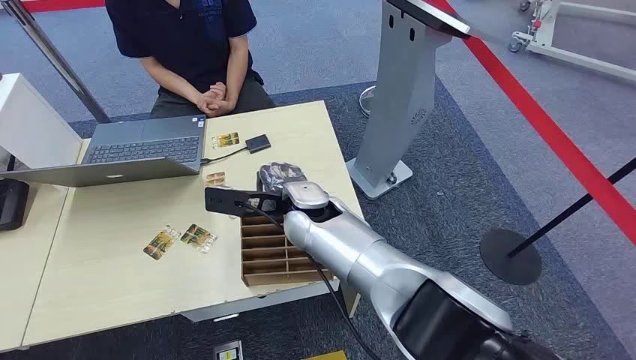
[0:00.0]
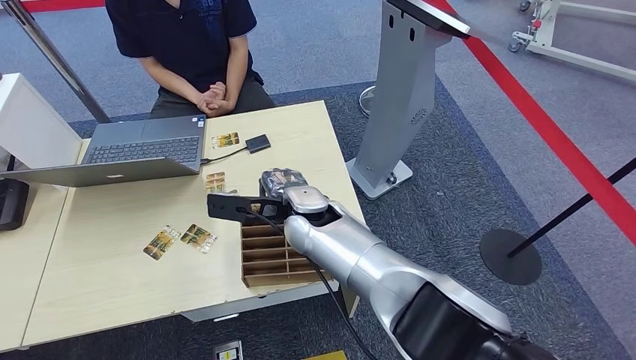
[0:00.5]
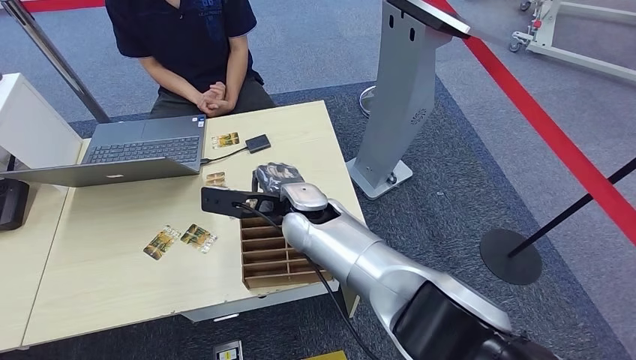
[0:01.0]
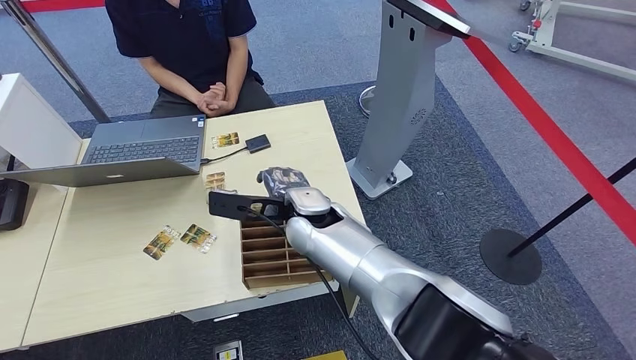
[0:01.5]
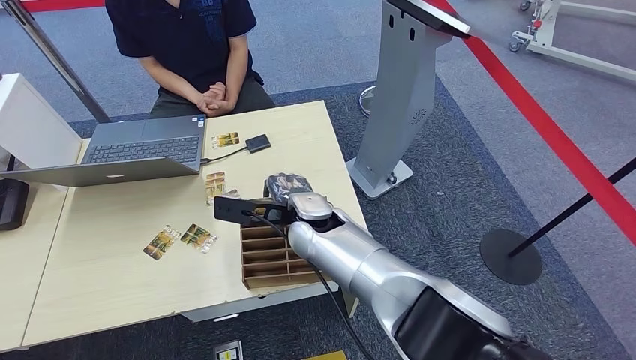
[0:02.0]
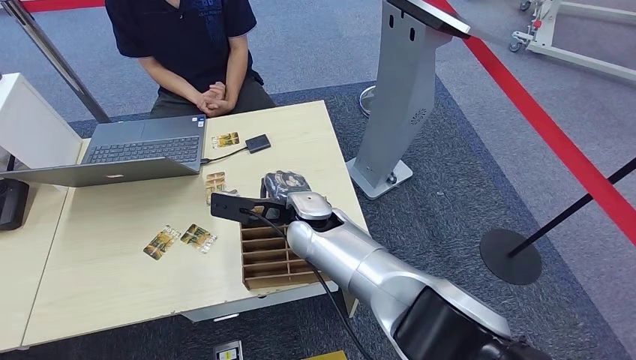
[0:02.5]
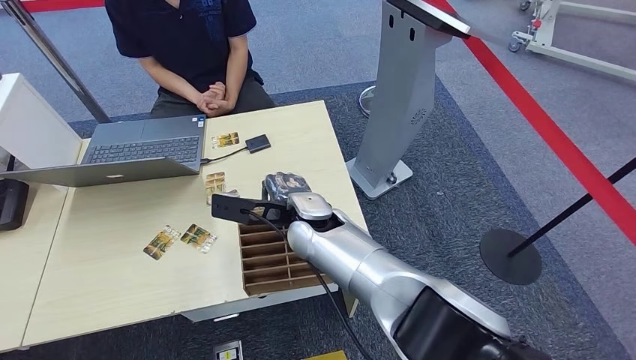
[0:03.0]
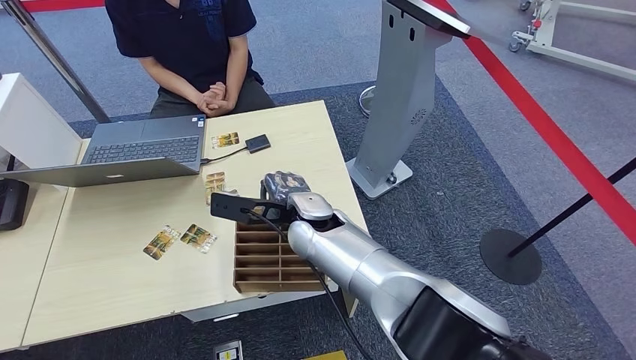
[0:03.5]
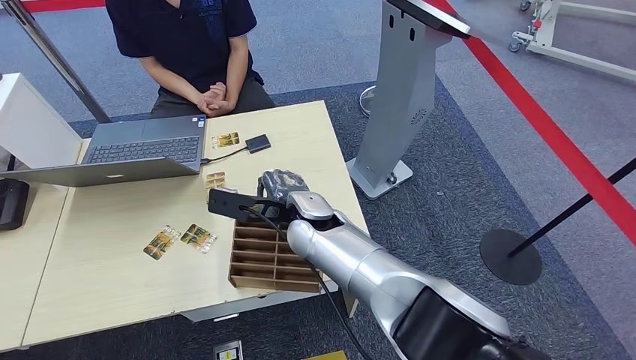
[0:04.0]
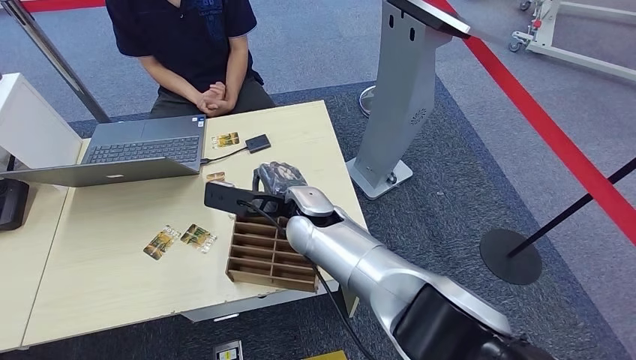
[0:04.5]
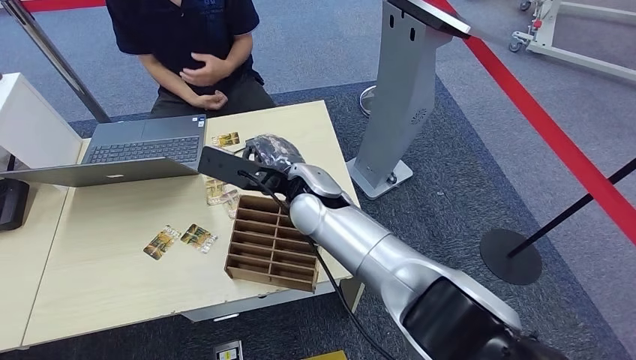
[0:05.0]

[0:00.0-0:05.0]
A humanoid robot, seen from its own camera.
Step, 0:00.0 to 0:05.0: Pick up the room card from the card holder.
0:02.5 to 0:05.0: The right hand changes place by roughly 5 cm.
